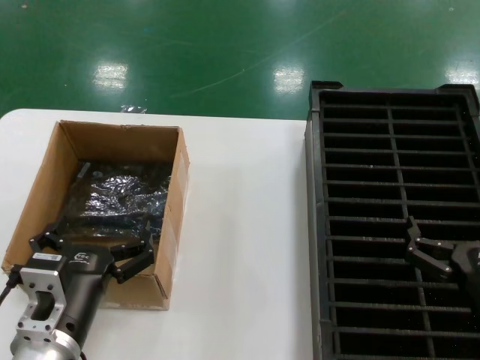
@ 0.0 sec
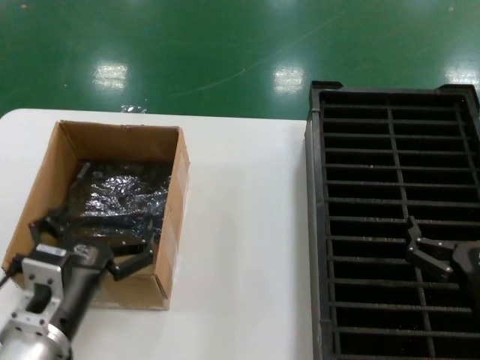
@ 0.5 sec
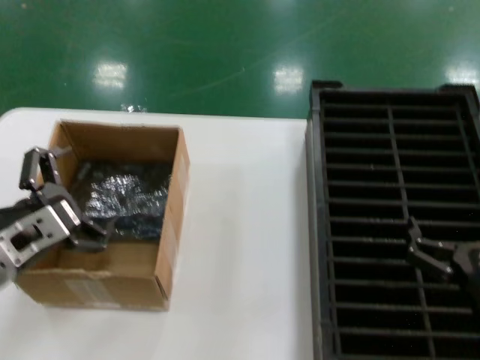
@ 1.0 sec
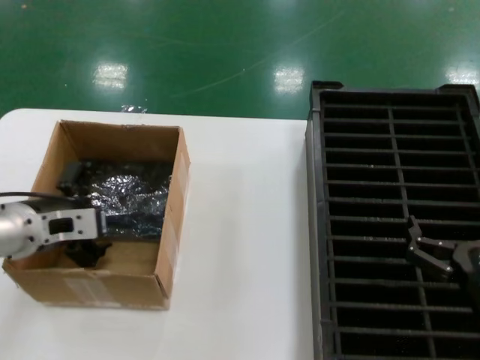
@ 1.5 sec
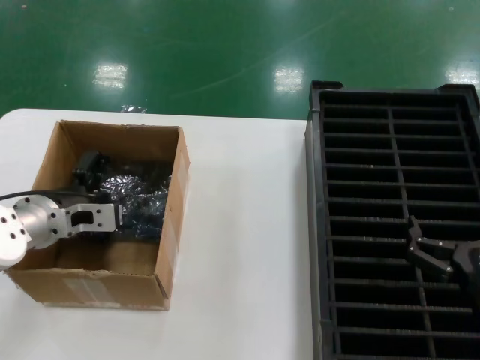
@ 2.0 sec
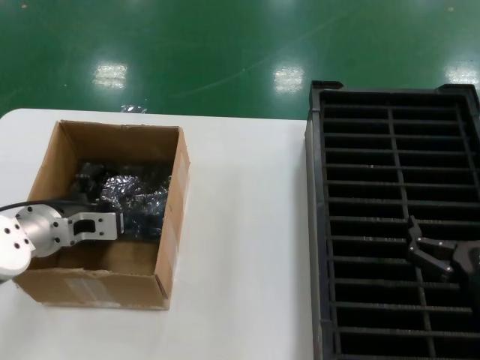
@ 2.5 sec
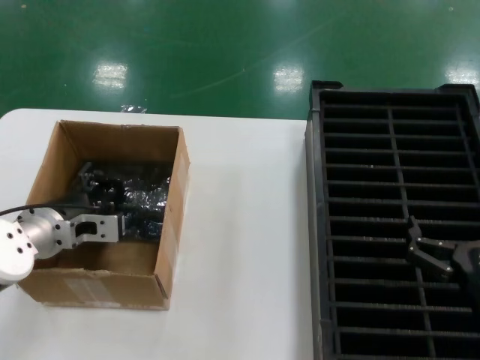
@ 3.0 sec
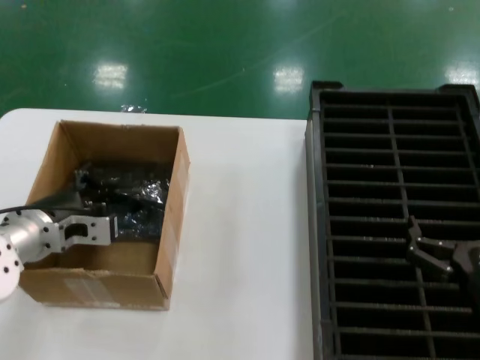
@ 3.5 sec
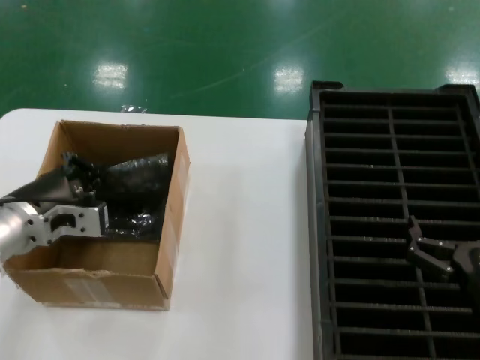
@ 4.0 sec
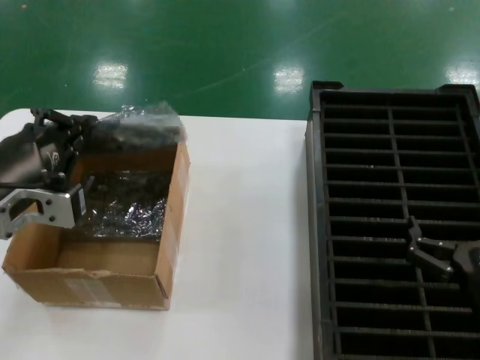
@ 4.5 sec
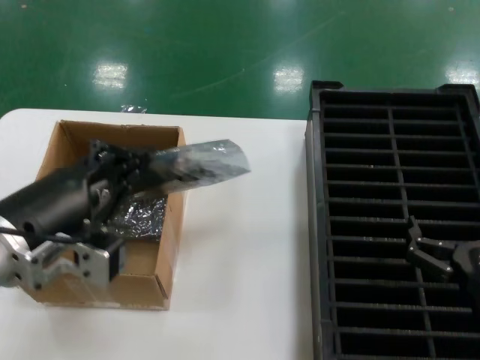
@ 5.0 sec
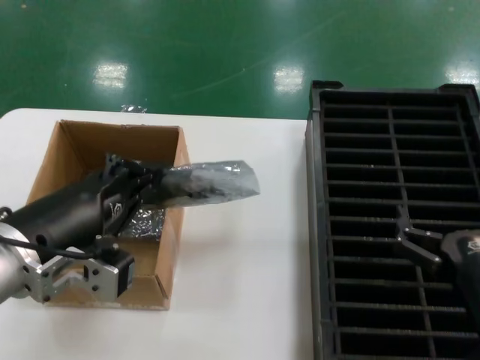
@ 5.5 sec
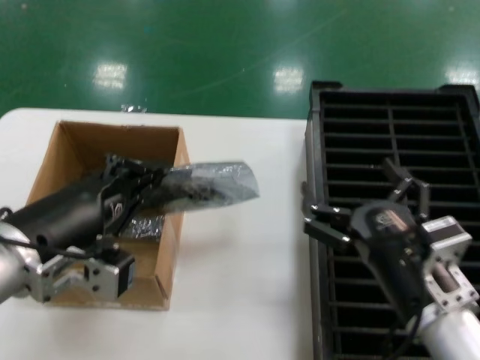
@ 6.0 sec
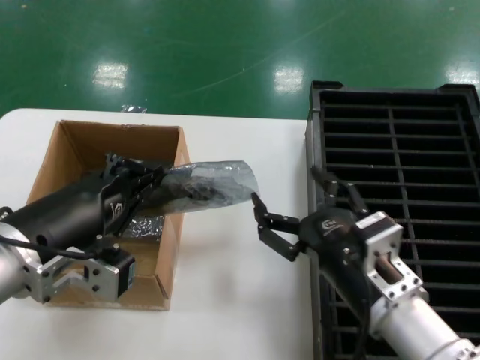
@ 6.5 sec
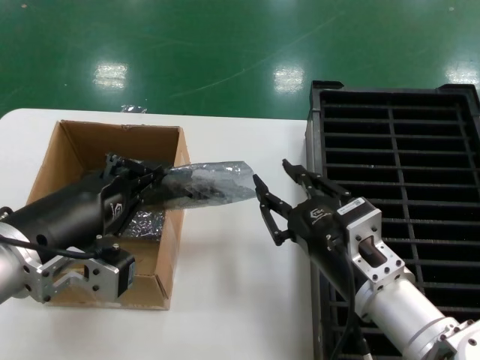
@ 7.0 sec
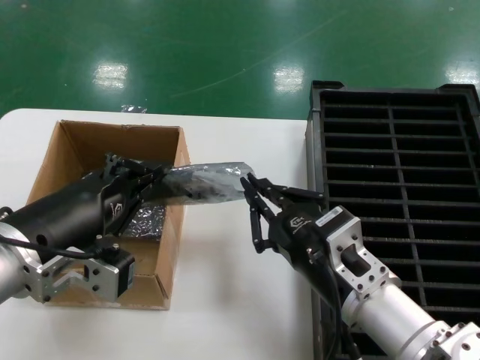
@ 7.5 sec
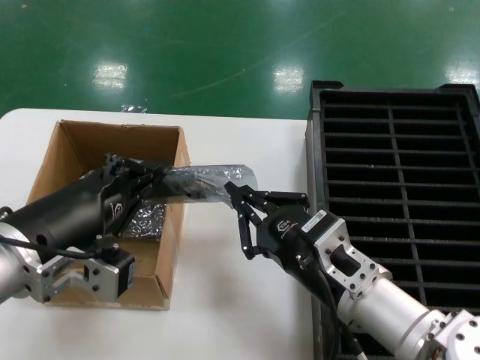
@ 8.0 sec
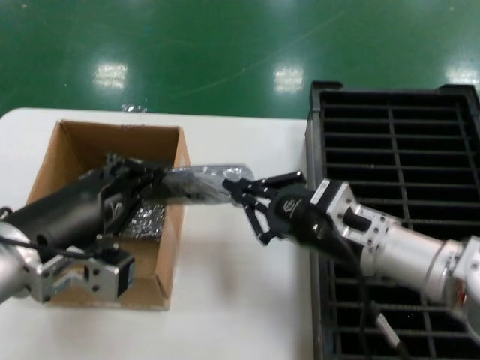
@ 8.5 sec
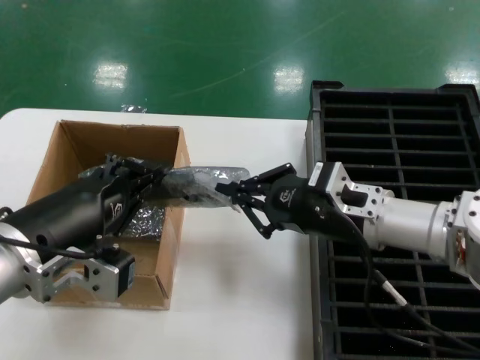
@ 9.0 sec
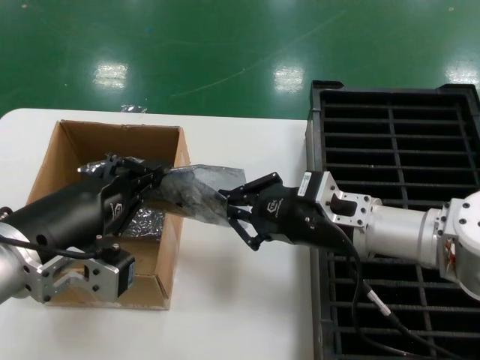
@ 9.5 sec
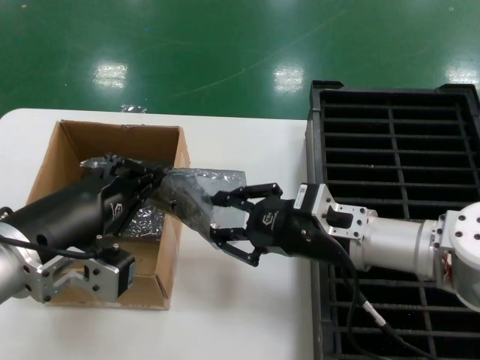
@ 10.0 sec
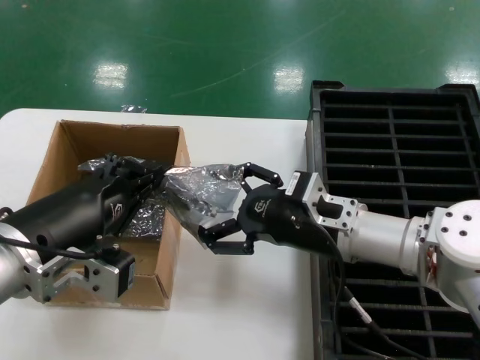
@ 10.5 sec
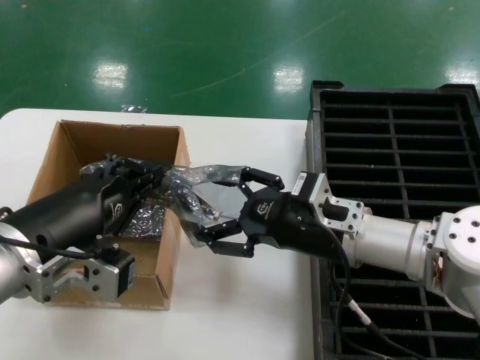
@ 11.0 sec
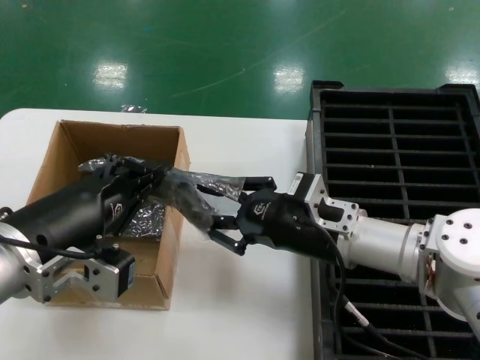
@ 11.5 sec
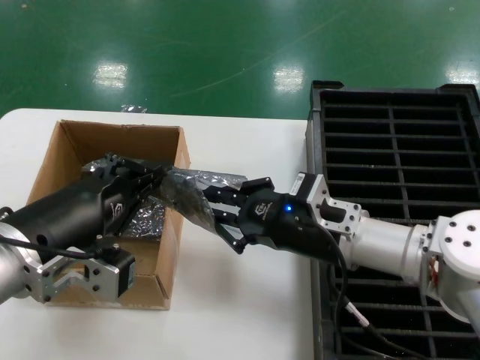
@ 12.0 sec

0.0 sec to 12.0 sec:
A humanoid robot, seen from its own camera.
Task of the whole recording: take out graphics card from box remove packaging put into black container.
Step, 0.0 sec to 3.5 sec: Grasp the bag.
Step, 4.0 sec to 5.5 sec: Lift the bag.
0.0 sec to 2.0 sec: The left hand is displaced forward, to the left and upward by about 20 cm.
2.0 sec to 4.0 sec: The left hand travels backward by roughly 5 cm.
4.0 sec to 6.0 sec: The right hand shifts about 10 cm to the left, while the left hand travels backward, to the right and upward by some 15 cm.
6.0 sec to 8.0 sec: The right hand moves to the left, approximately 5 cm.
8.0 sec to 10.0 sec: The right hand goes roughly 10 cm forward.
10.0 sec to 12.0 sec: The hands make only small movements.

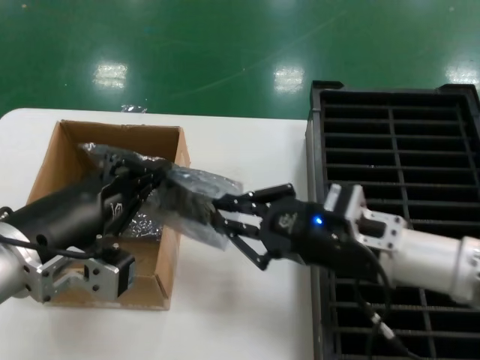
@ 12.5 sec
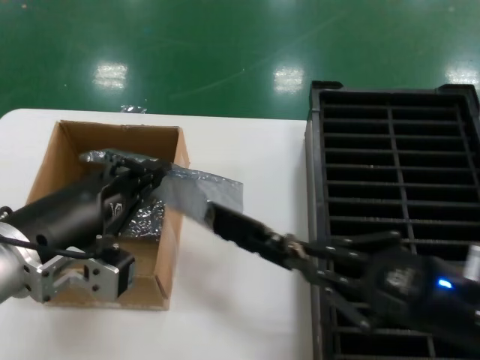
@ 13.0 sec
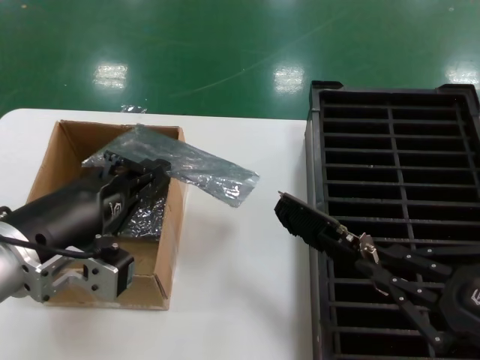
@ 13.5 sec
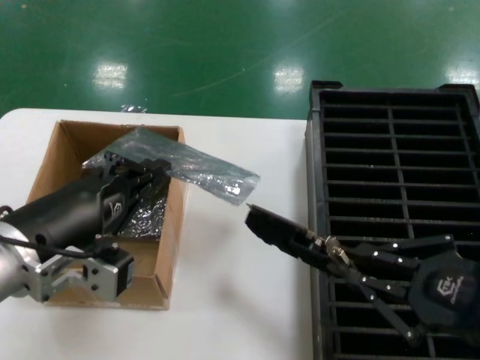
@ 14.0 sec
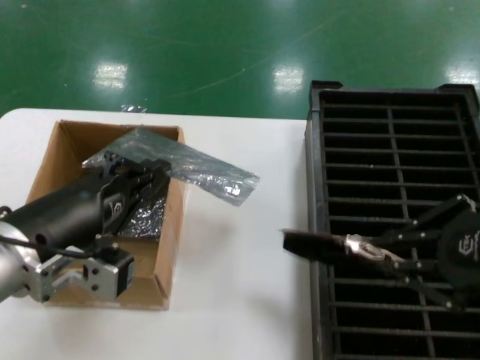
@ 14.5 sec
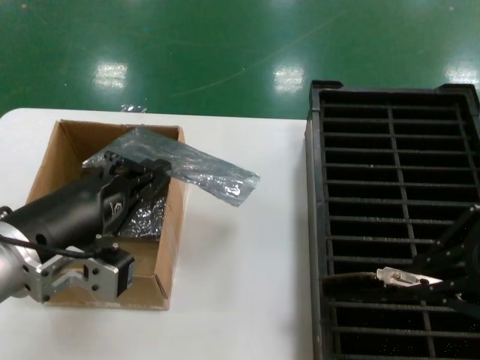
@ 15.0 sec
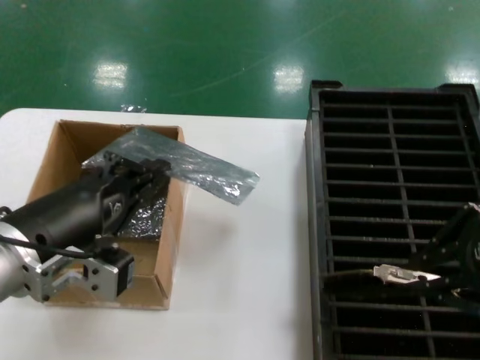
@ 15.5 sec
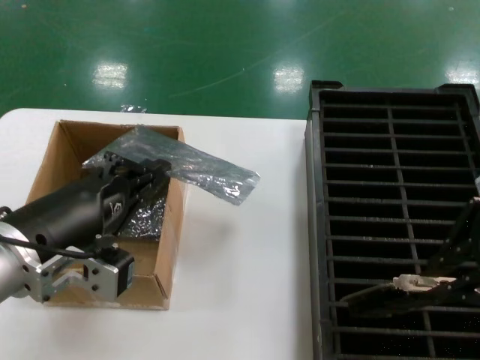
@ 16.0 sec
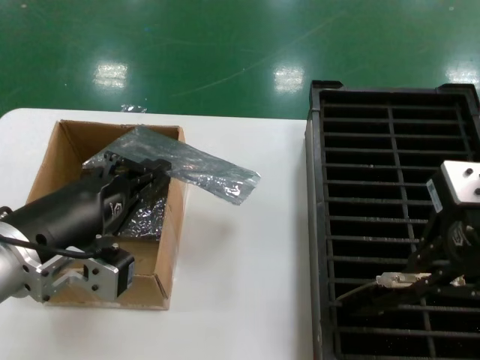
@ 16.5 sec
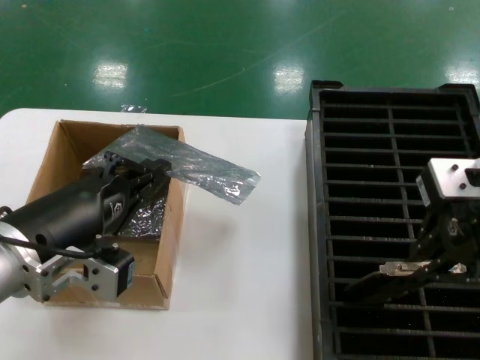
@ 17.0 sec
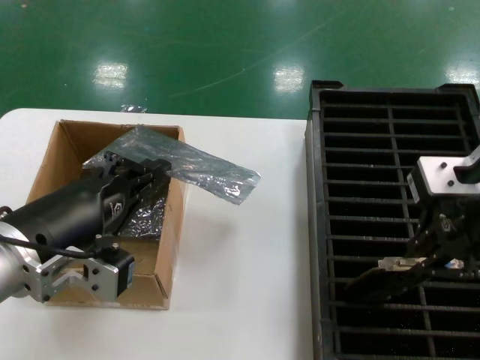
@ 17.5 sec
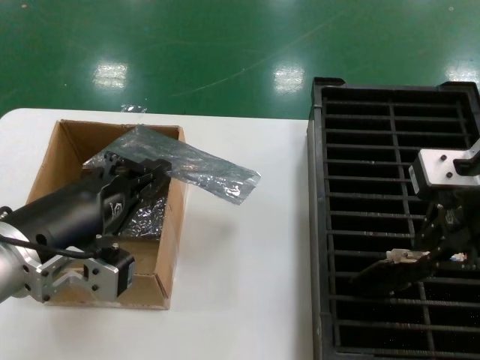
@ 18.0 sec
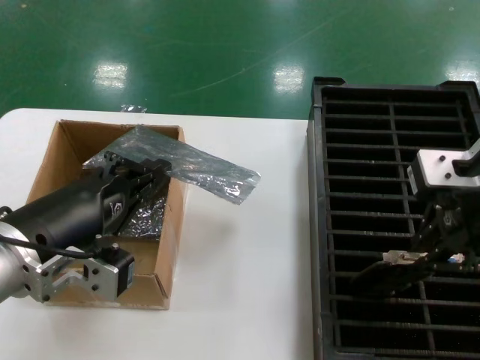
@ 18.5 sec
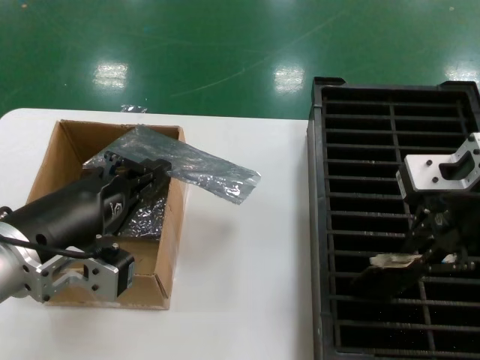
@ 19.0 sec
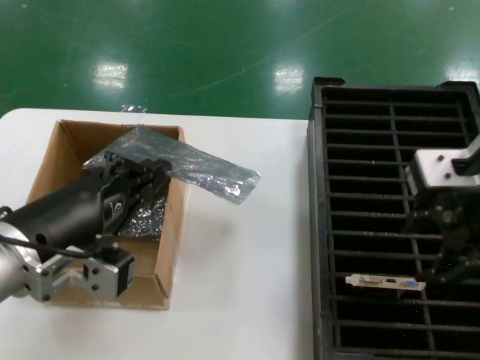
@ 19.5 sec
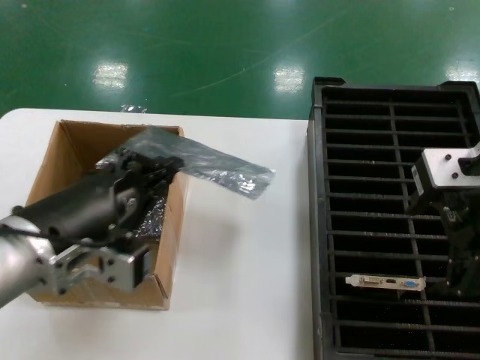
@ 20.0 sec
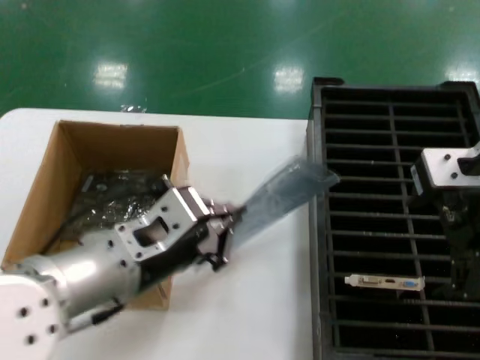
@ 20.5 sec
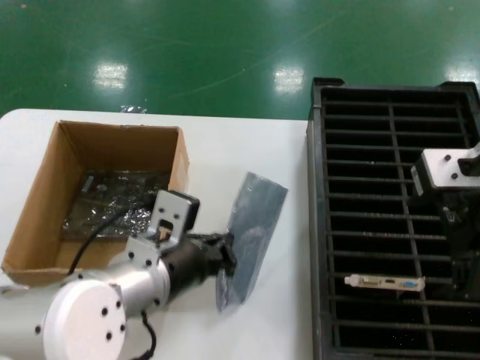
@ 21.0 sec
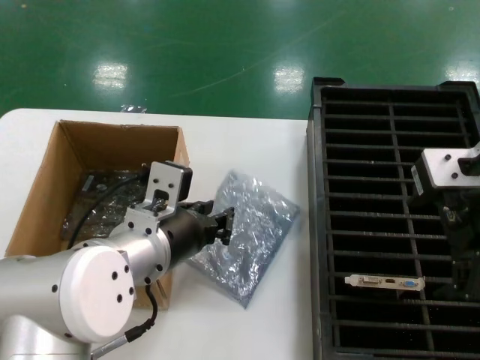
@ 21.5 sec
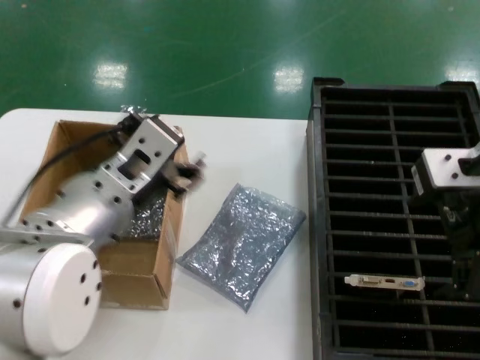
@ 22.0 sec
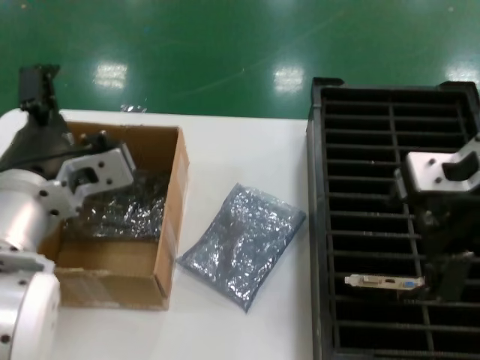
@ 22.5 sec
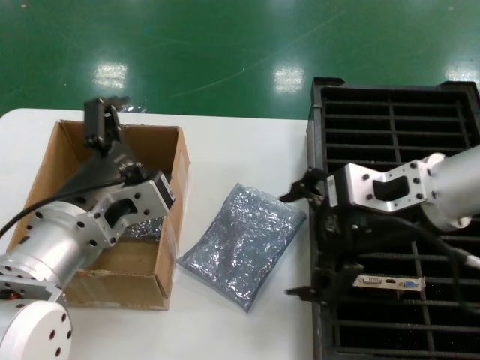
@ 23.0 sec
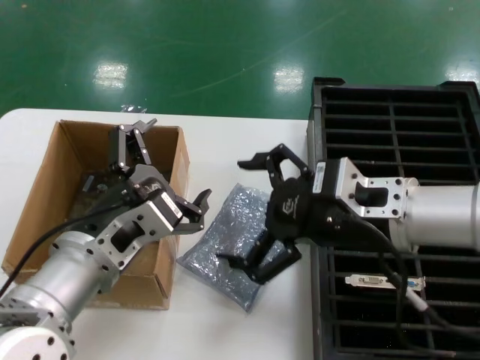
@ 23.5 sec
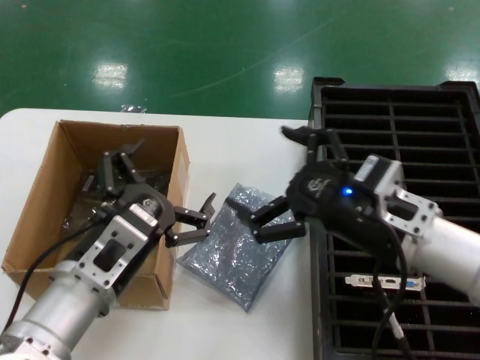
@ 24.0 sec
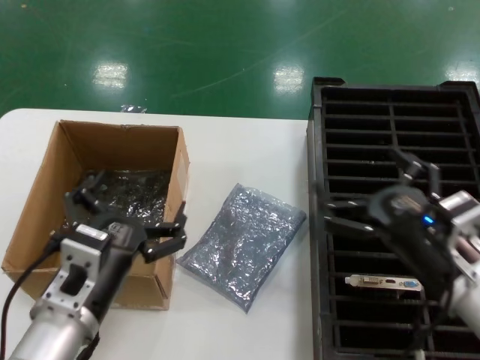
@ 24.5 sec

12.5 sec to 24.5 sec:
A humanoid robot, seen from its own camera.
Task of the whole recording: take out graphics card from box remove packaging put into black container.
Step, 13.5 sec to 19.0 sec: Place the hard disk in the hard disk enclosure.
Step, 19.5 sec to 21.5 sec: Place the down the bag.
12.5 sec to 14.5 sec: The right hand is displaced upward, backward and to the right by roughly 25 cm.
14.5 sec to 16.5 sec: The right hand moves forward and upward, some 10 cm.
16.5 sec to 18.5 sec: The hands make only small movements.
18.5 sec to 20.5 sec: The left hand heads to the right, covering some 5 cm.
22.5 sec to 24.5 sec: The right hand shifts roughly 25 cm downward; the left hand moves downward, some 15 cm.

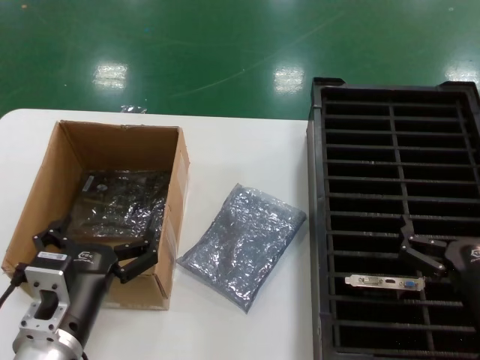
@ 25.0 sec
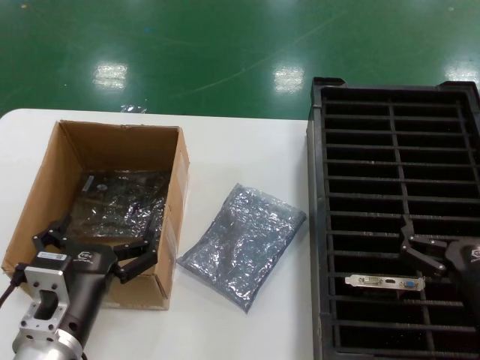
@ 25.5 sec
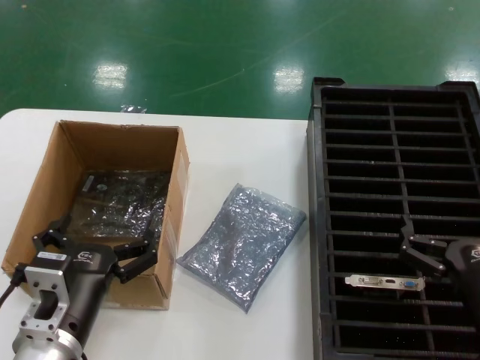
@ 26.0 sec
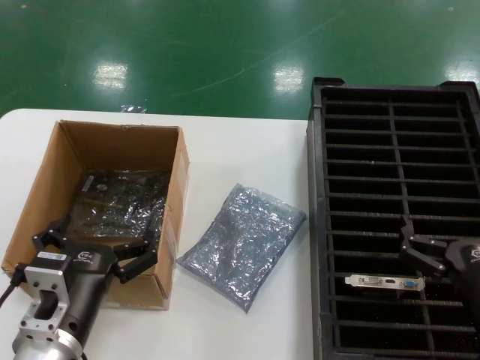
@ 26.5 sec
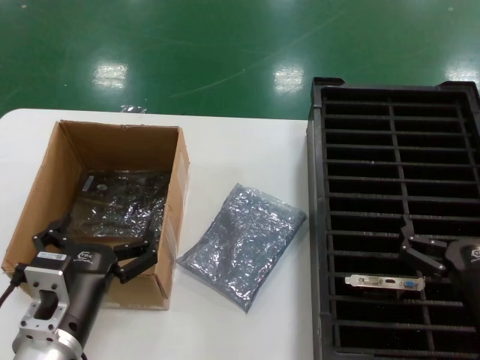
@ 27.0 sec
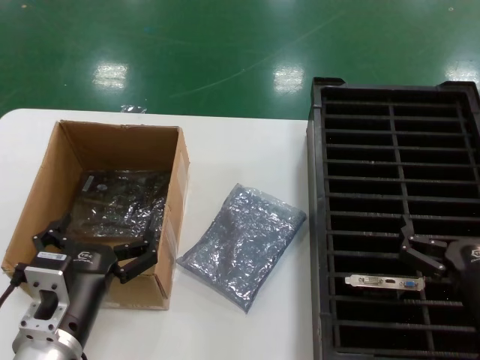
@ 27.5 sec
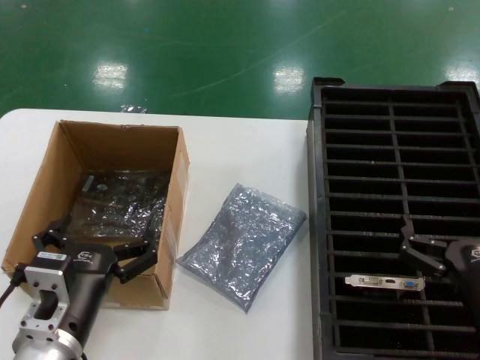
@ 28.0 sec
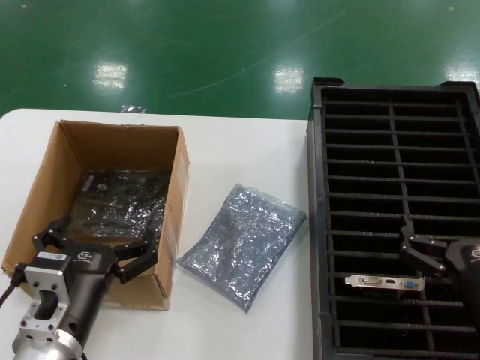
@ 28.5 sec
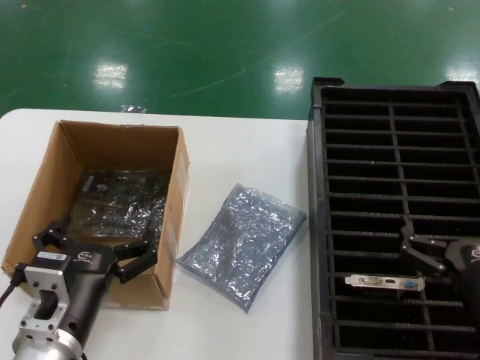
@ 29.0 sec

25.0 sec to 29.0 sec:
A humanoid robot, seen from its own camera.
Task of the whole recording: take out graphics card from box remove packaging put into black container.
25.0 sec to 29.0 sec: Both hands stay put.
